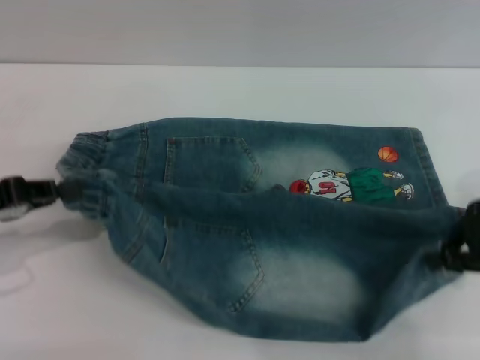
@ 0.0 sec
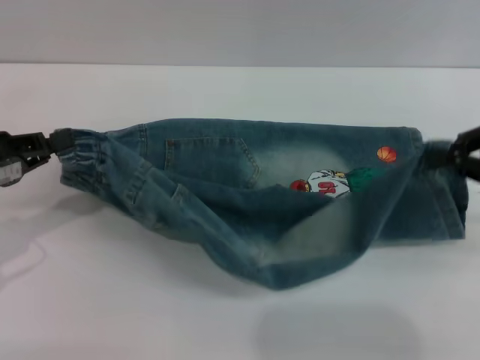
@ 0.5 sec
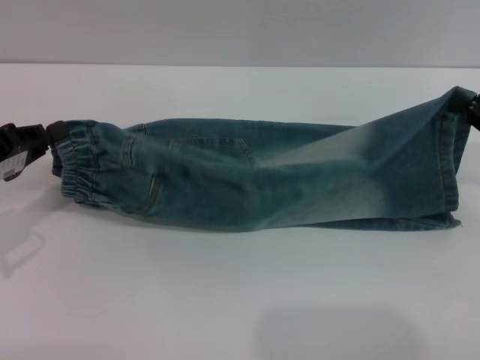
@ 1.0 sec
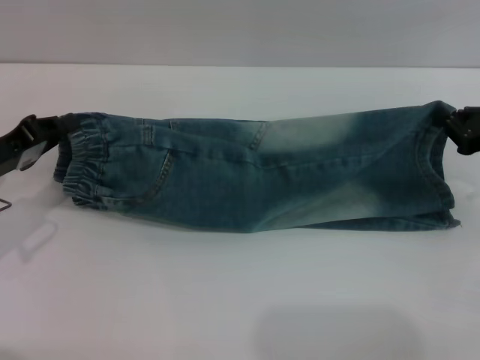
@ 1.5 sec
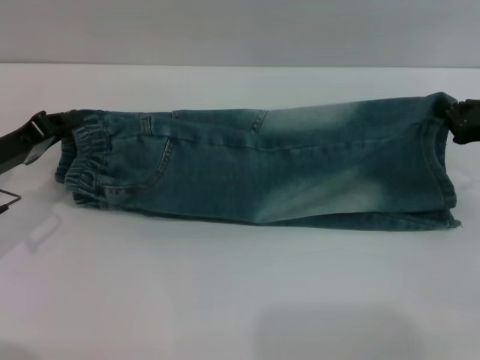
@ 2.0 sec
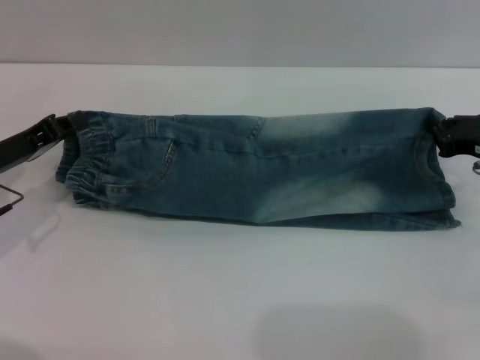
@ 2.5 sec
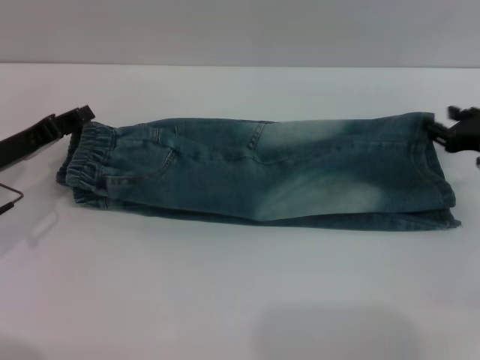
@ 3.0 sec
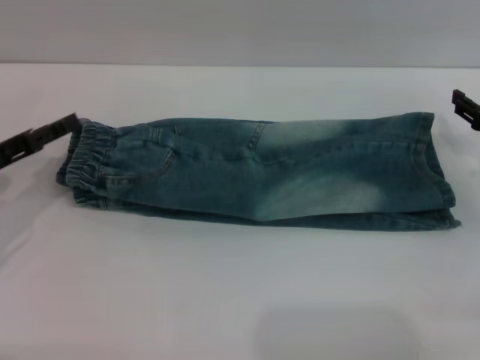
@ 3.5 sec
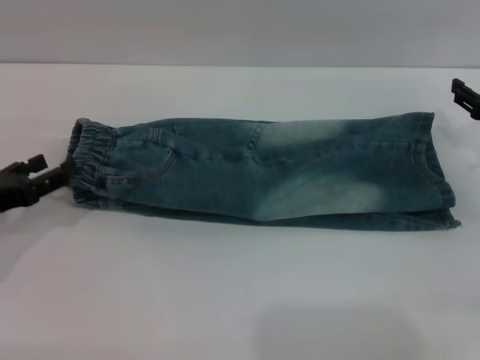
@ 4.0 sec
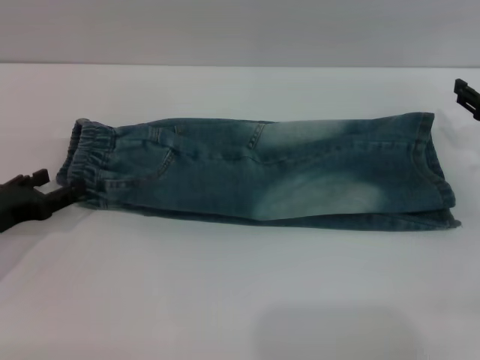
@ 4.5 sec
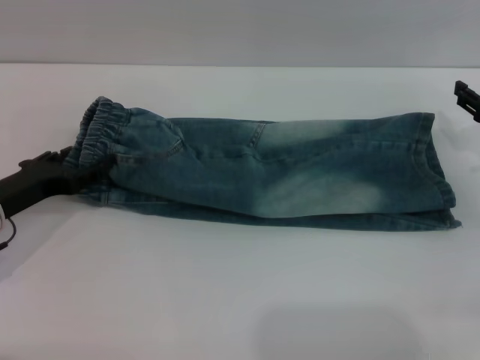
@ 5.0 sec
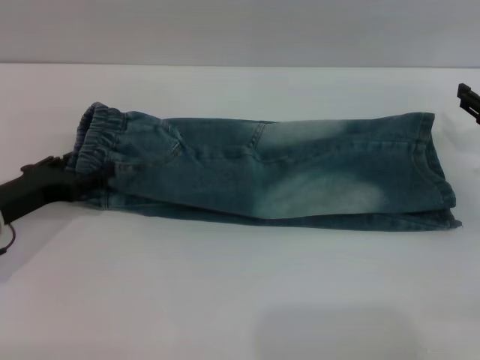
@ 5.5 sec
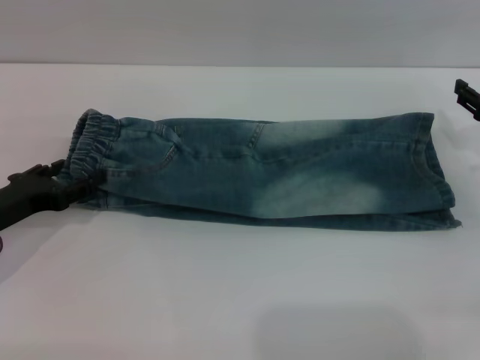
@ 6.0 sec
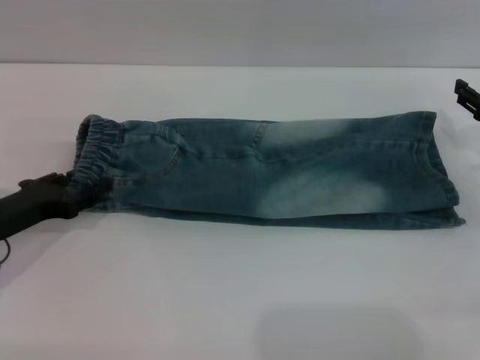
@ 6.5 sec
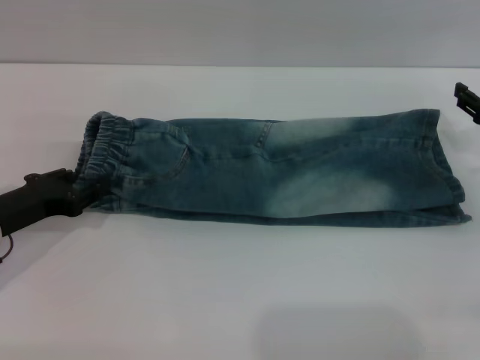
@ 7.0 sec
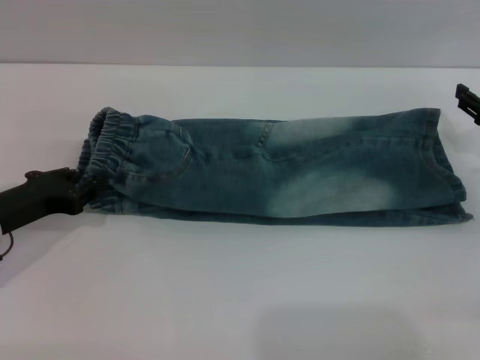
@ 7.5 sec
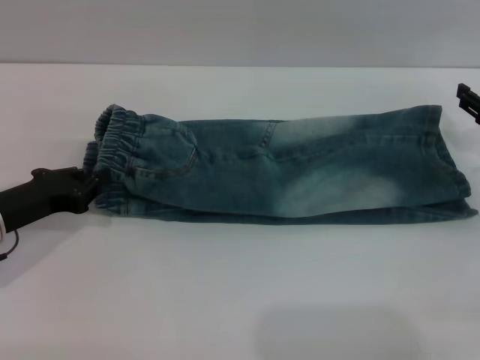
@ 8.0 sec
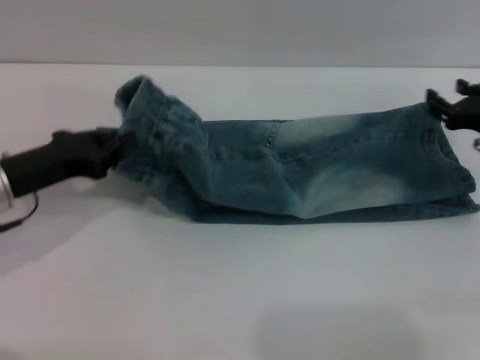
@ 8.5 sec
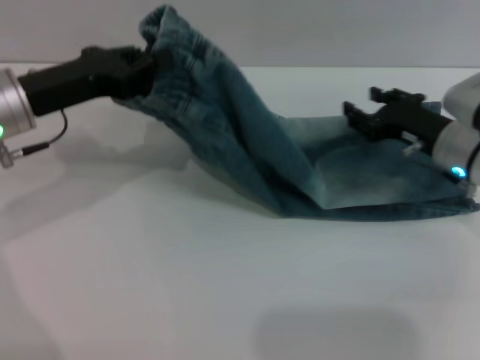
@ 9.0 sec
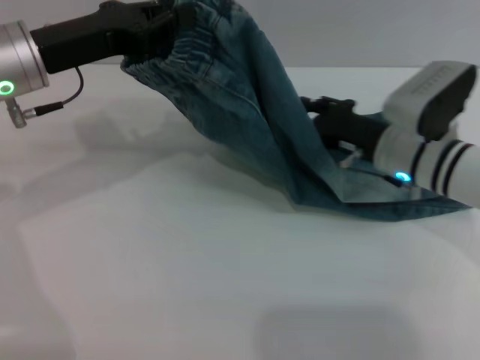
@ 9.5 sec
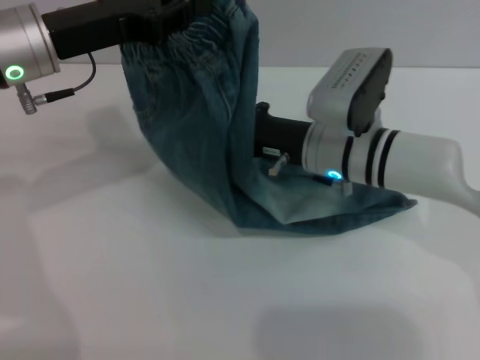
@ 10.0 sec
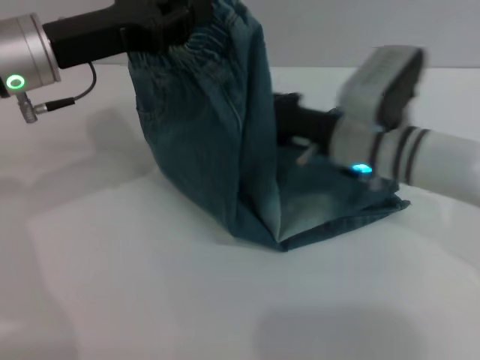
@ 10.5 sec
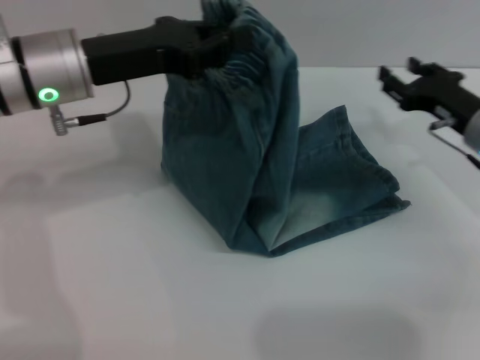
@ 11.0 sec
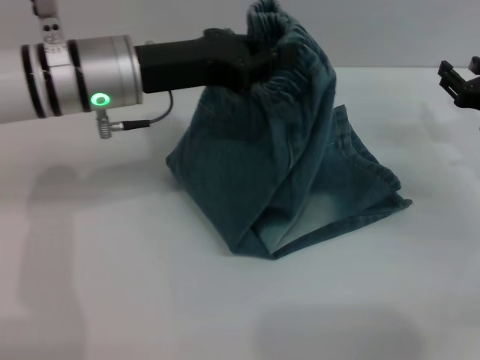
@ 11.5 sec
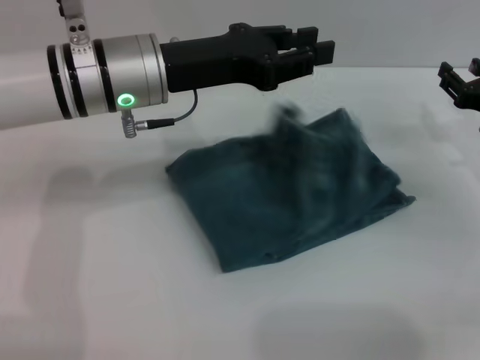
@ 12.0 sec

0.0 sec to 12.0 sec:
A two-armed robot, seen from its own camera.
Step, 0.0 sec to 3.0 sec: Fold the bottom of the pants upward with both grippers.
Step, 3.5 sec to 12.0 sec: Fold the pants from left to right with the left gripper.
0.0 sec to 2.0 sec: The right gripper is displaced downward by roughly 5 cm, while the left gripper is displaced forward by approximately 5 cm.
2.0 sec to 4.0 sec: The right gripper opens its fingers. The left gripper goes about 5 cm backward, and opens its fingers.
4.0 sec to 6.0 sec: The grippers make only small movements.
6.0 sec to 8.0 sec: The left gripper closes.
8.0 sec to 10.0 sec: The right gripper shifts roughly 25 cm to the left; the left gripper shifts some 20 cm upward, forward and to the right.
10.0 sec to 12.0 sec: The left gripper travels to the right by approximately 10 cm. The right gripper shifts roughly 20 cm to the right.

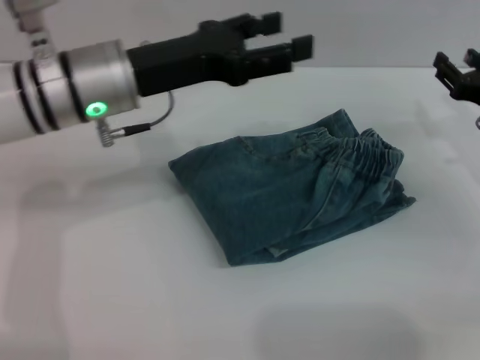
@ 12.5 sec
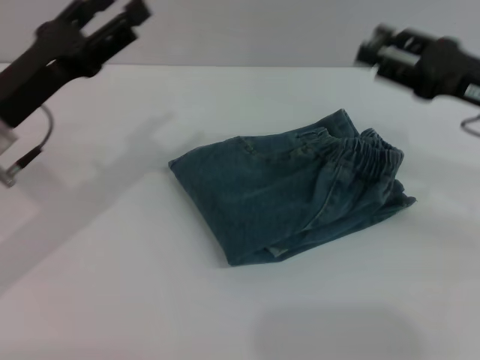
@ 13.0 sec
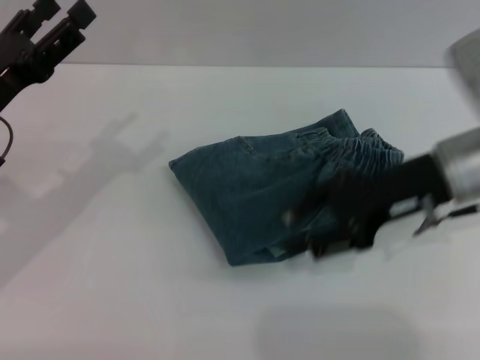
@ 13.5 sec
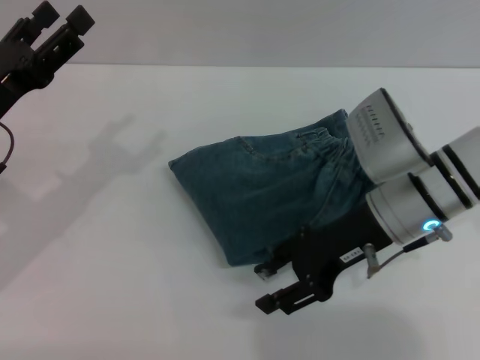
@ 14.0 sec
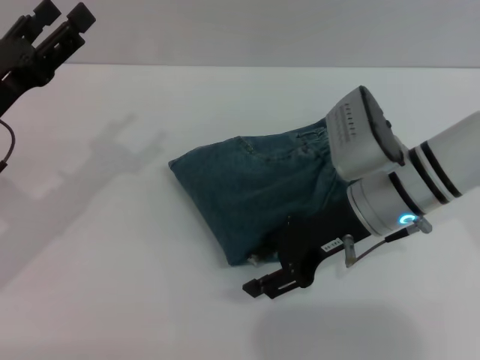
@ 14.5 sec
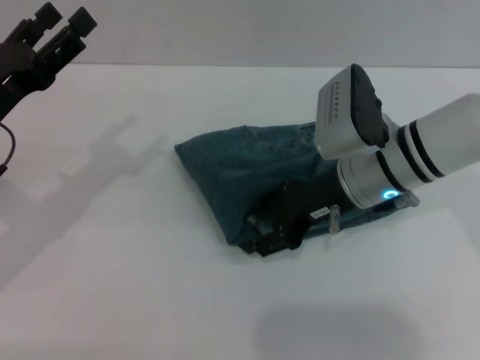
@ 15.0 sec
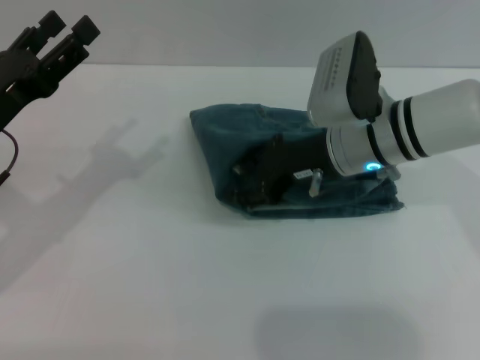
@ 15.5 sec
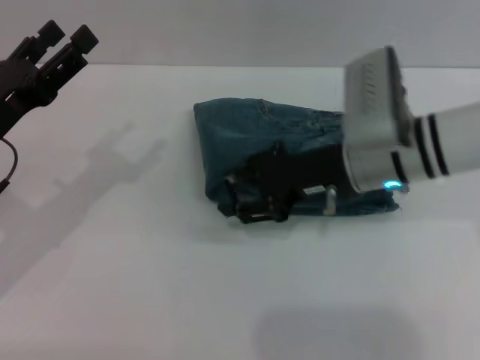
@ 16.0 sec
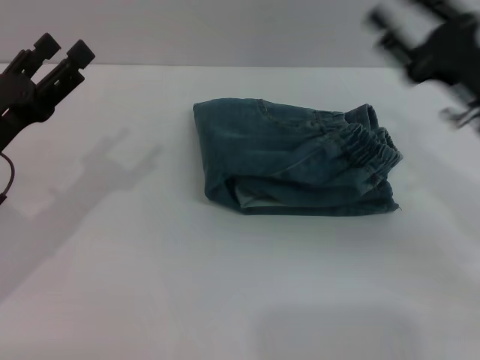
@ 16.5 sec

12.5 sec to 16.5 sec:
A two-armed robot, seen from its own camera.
Step, 12.5 sec to 16.0 sec: Place the folded trousers onto the center area with the right grippers.
12.5 sec to 14.5 sec: The left gripper goes some 15 cm to the left and backward. Meanwhile the right gripper travels to the left by approximately 15 cm.
14.5 sec to 16.5 sec: The right gripper heads to the right, covering approximately 10 cm.
